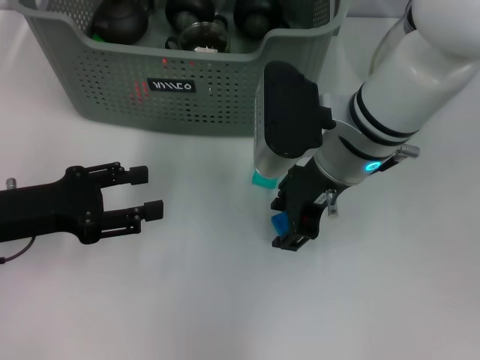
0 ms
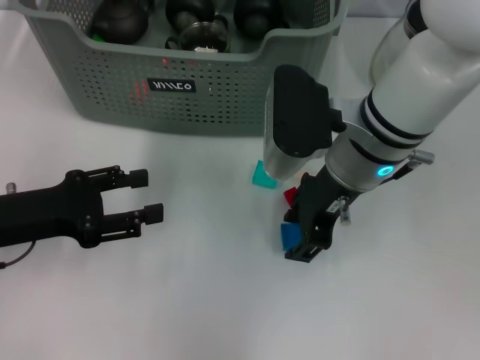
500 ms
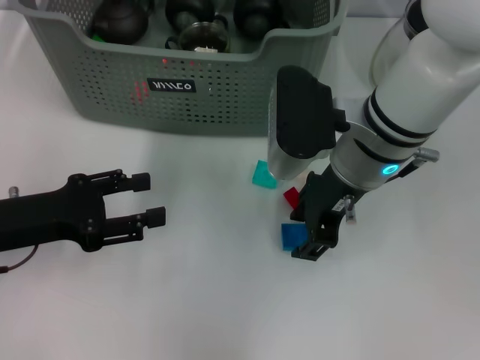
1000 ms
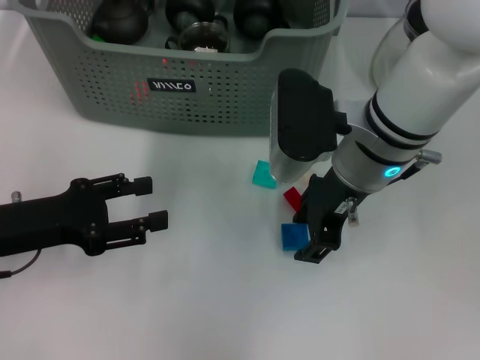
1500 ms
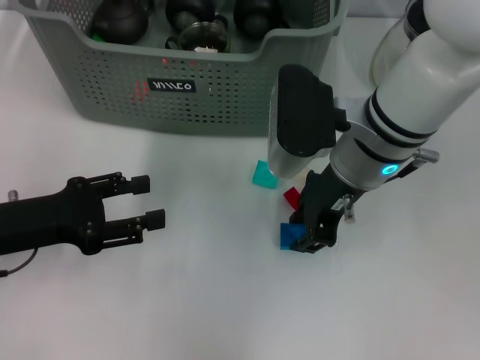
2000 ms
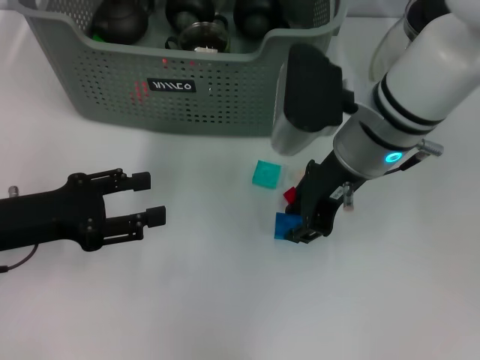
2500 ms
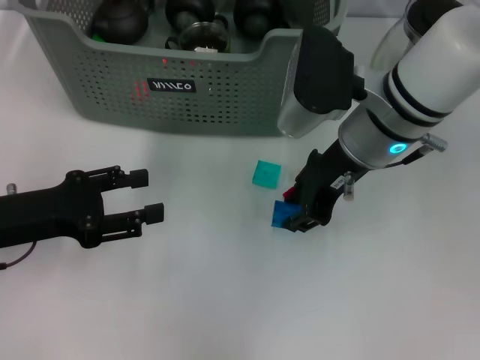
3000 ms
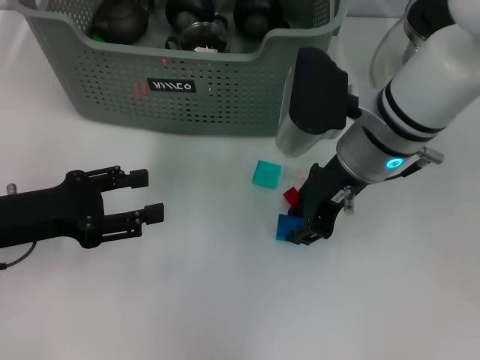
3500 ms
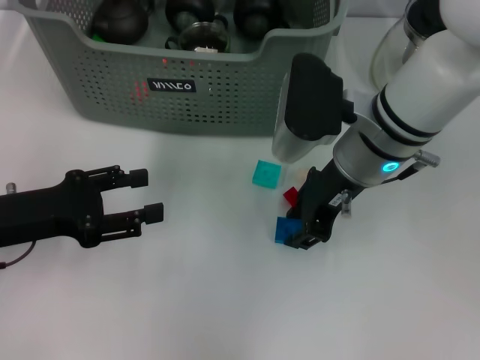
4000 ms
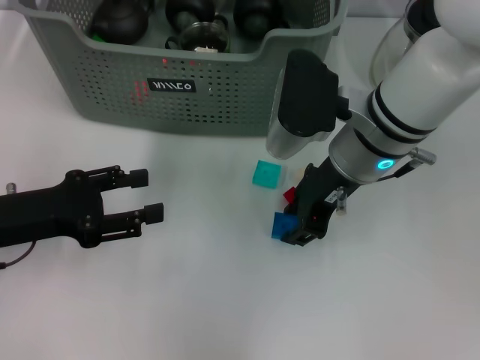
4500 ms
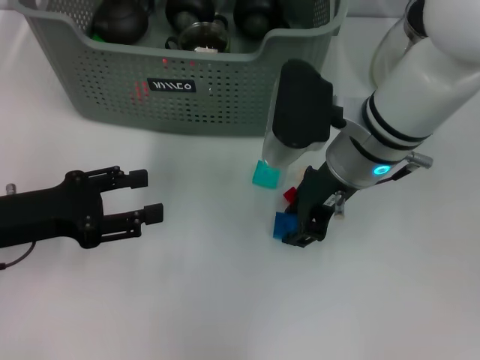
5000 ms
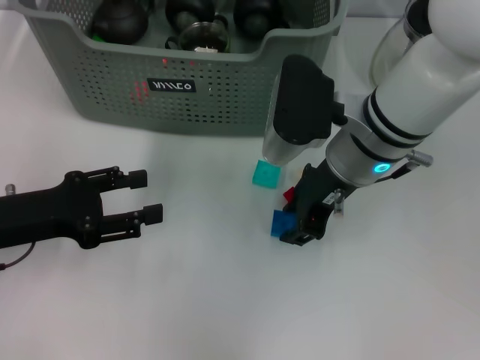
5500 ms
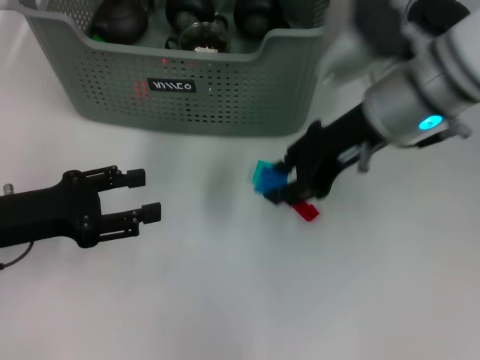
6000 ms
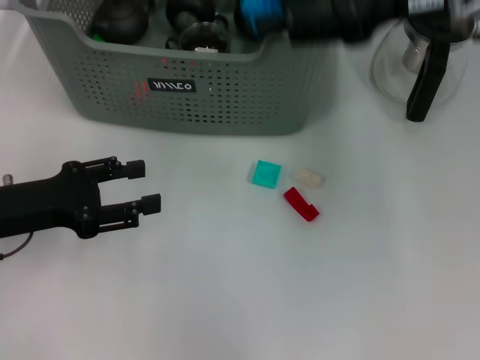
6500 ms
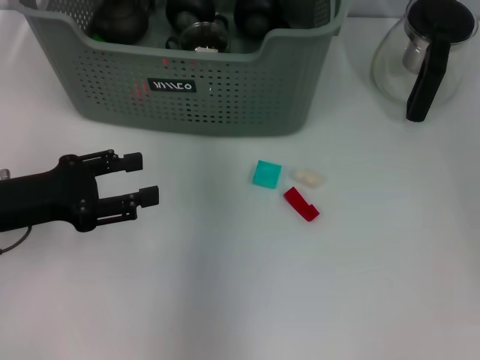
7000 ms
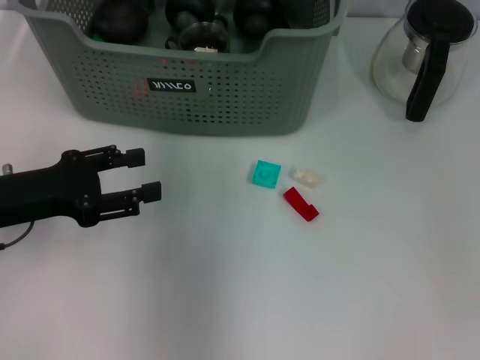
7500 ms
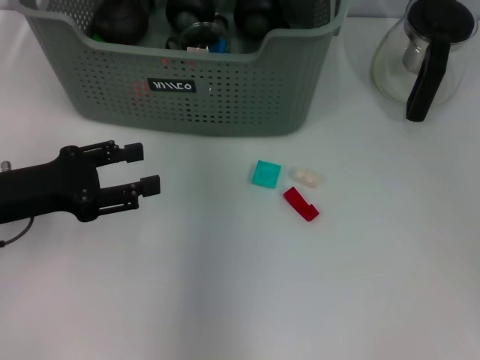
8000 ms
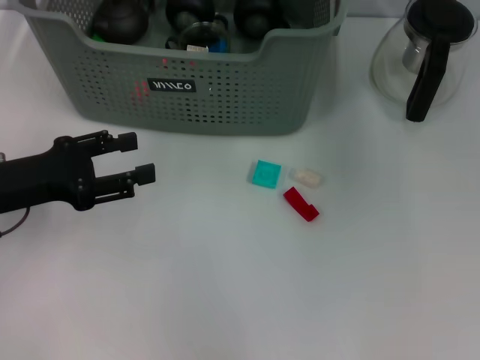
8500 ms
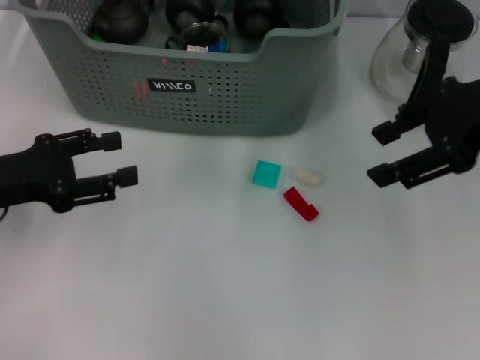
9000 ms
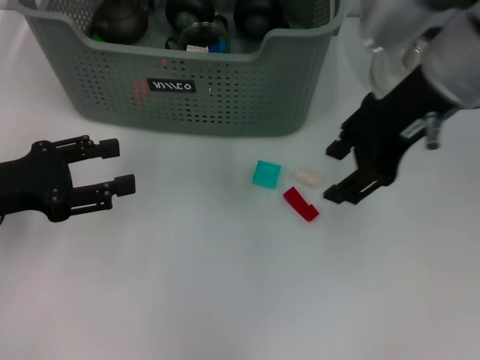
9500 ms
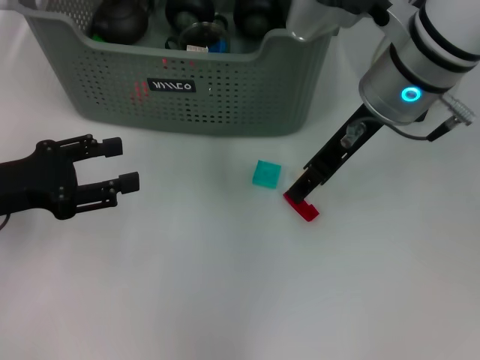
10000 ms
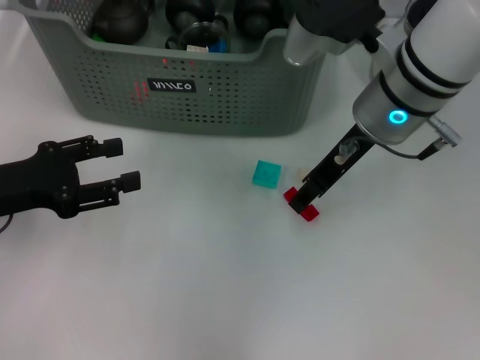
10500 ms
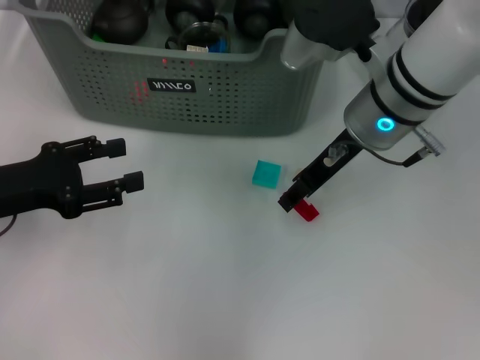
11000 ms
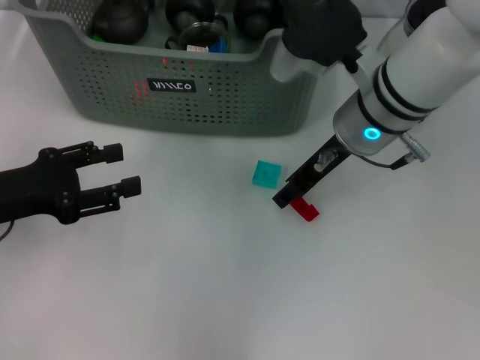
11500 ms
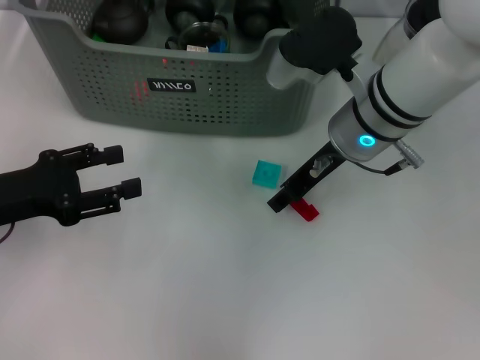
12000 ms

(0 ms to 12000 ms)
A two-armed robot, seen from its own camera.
Task of the whole recording: pick up the teacup on the table and place it into the storage bin, pick up the block on the table and place it into the storage bin.
Step, 0 ms - 2000 ms: Grasp the dark blue block with right gripper.
Step, 2500 ms - 7500 ms: Place the dark blue block in the storage box with right gripper.
0 ms - 4000 ms: There are only small adjustments of the grippers.
4000 ms - 6000 ms: The right gripper heads upward, covering roughly 5 cm.
6000 ms - 8000 ms: The right gripper moves forward, upward and to the left, roughly 15 cm.
8000 ms - 10000 ms: The right gripper goes roughly 15 cm backward, downward and to the right.
10000 ms - 12000 ms: The right gripper is displaced downward by about 5 cm.

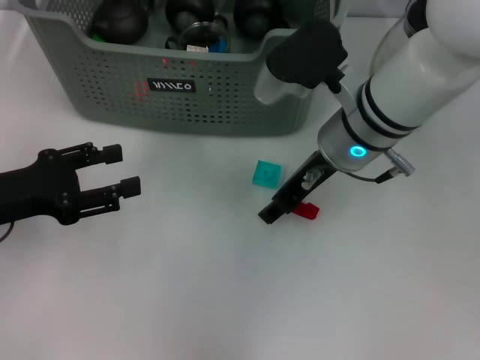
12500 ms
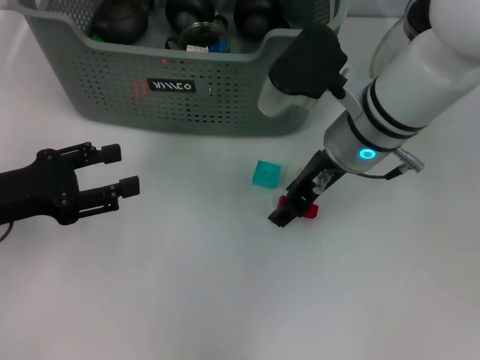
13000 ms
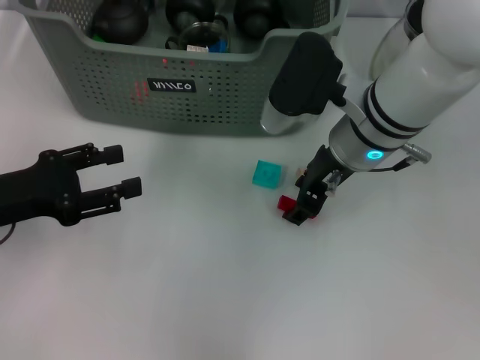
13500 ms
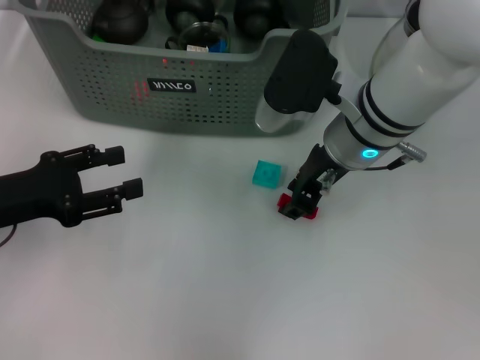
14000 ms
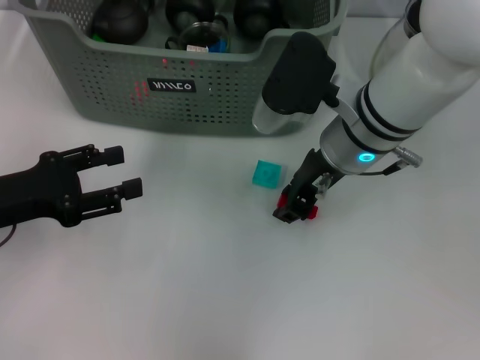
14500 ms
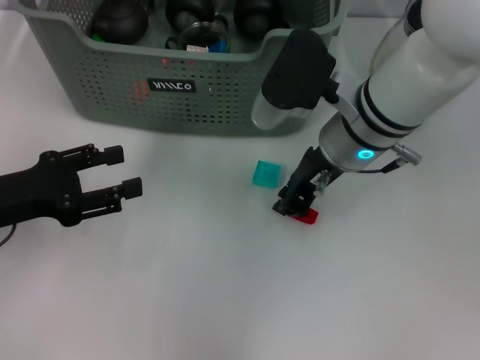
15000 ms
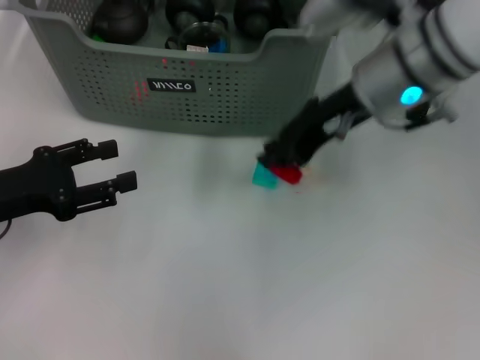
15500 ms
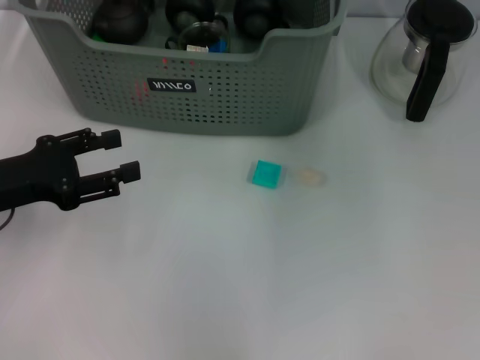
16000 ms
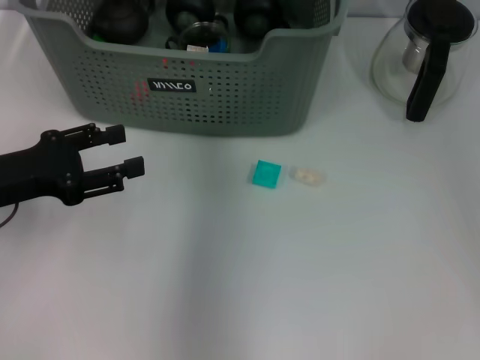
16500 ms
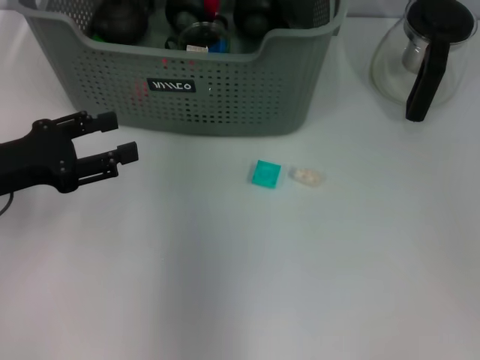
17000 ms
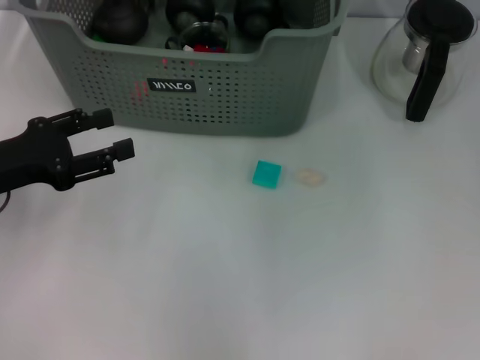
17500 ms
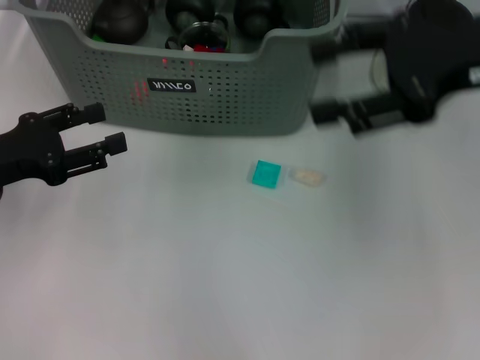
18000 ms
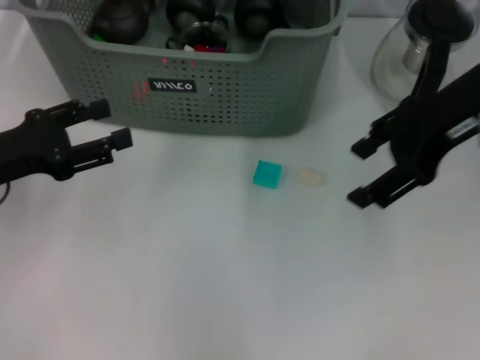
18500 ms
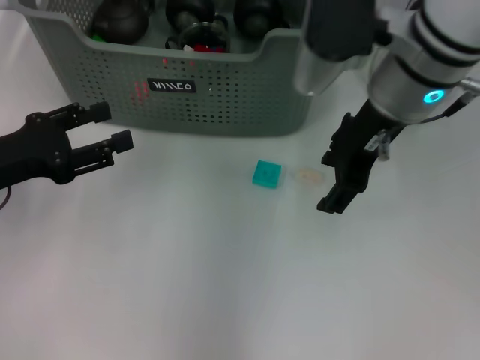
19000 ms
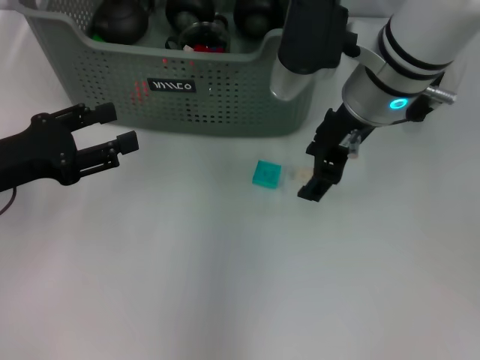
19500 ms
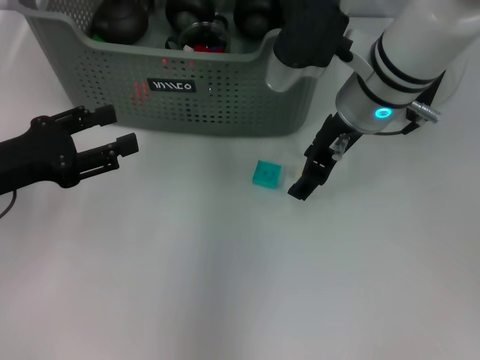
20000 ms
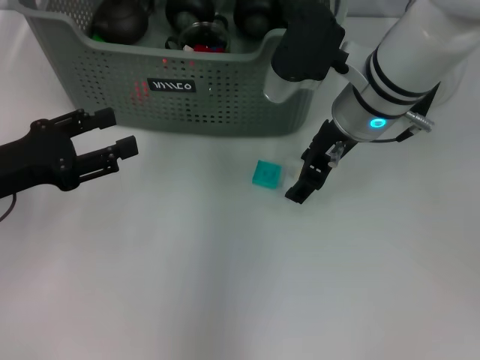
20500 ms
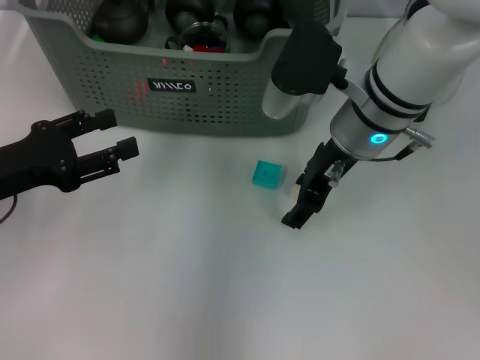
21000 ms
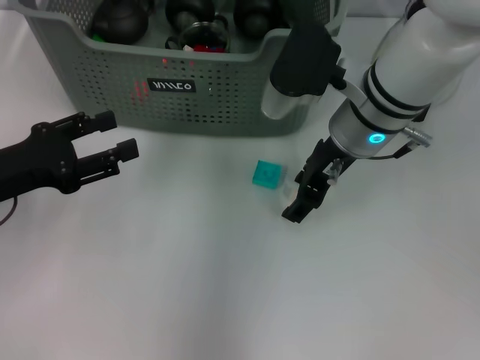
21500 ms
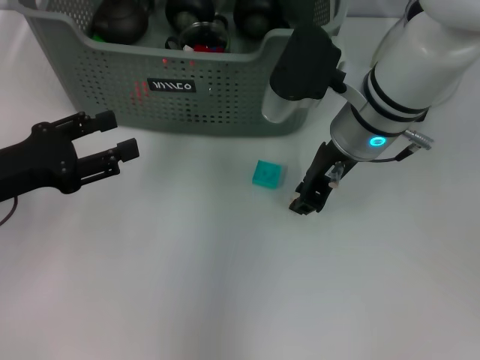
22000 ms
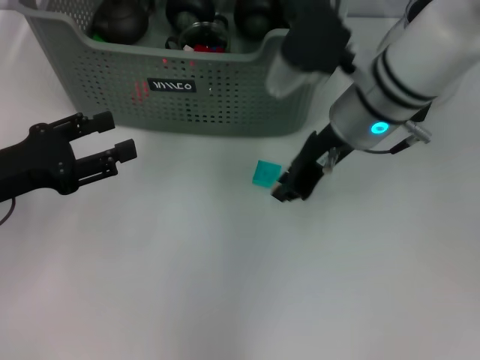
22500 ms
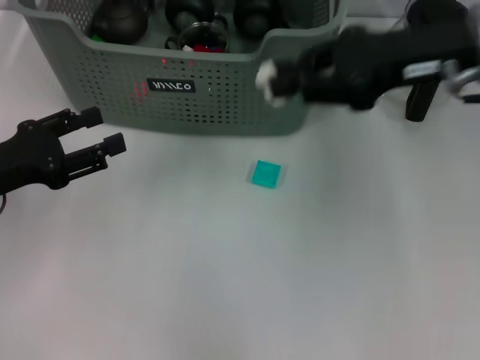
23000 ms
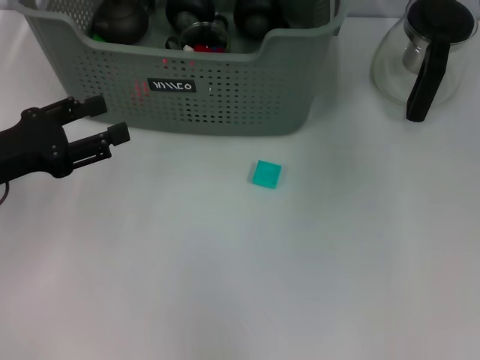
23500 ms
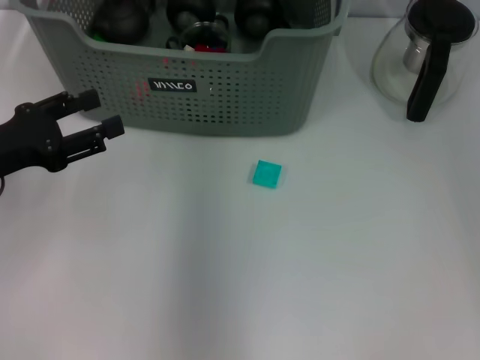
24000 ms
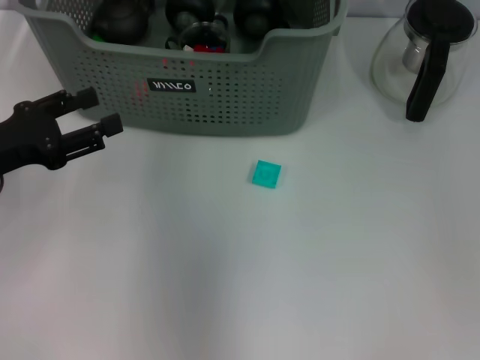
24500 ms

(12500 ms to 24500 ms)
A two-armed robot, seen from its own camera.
Task of the whole recording: pick up the teacup on the table and place it into the storage bin, pick up the block on the table and place it into the storage bin.
Step, 12500 ms - 14500 ms: Grasp the red block with right gripper.
Step, 15000 ms - 17000 ms: Place the red block in the storage box with right gripper.
Step, 17500 ms - 22000 ms: Grasp the white block with right gripper.
12500 ms - 14500 ms: The grippers stay close to where they were, moving slightly.
14500 ms - 16500 ms: The right gripper heads upward and forward, covering roughly 20 cm.
16500 ms - 18500 ms: The right gripper moves to the right and backward, some 15 cm, and opens up.
18500 ms - 20500 ms: The right gripper goes approximately 15 cm downward and to the left.
20500 ms - 22500 ms: The right gripper closes.
22500 ms - 24500 ms: The right gripper travels upward, forward and to the left by about 15 cm.

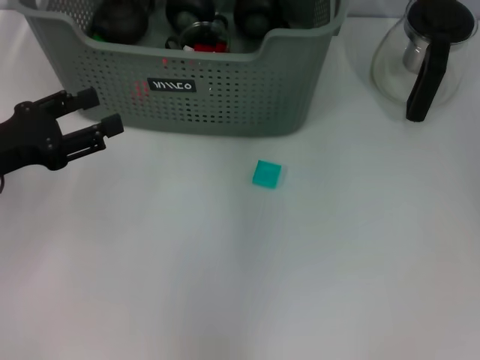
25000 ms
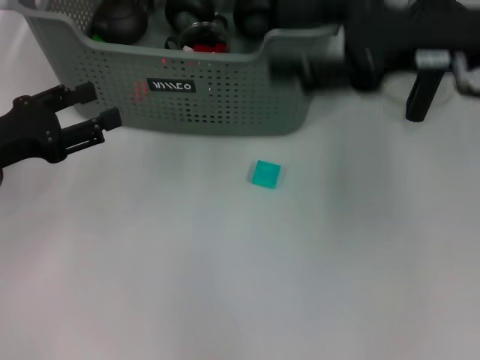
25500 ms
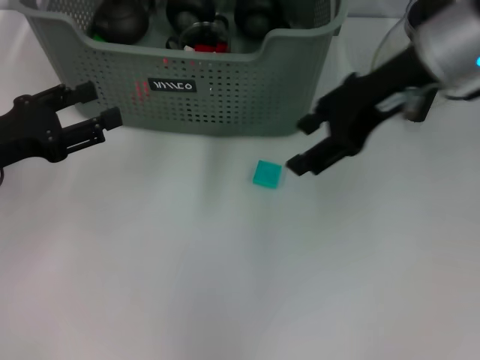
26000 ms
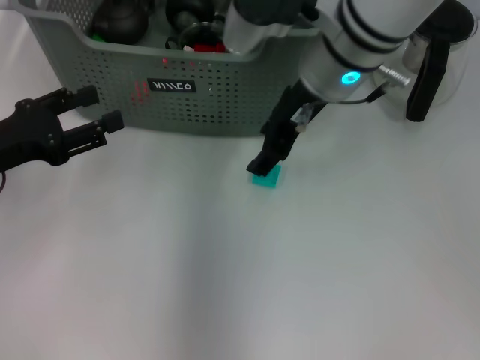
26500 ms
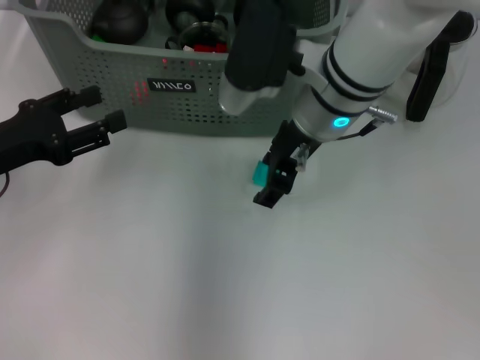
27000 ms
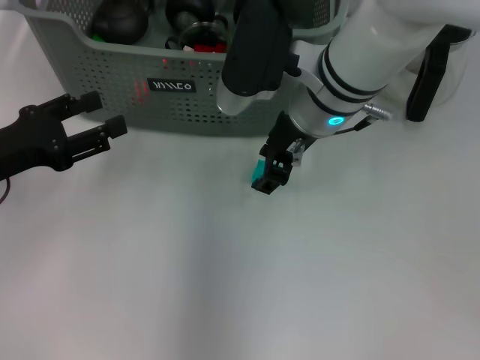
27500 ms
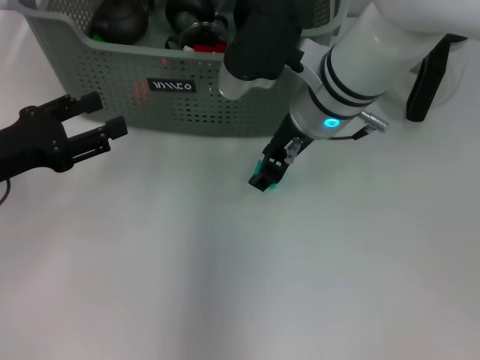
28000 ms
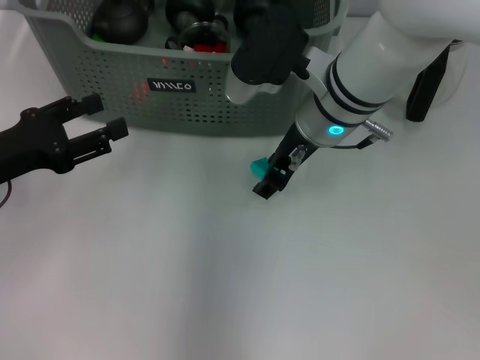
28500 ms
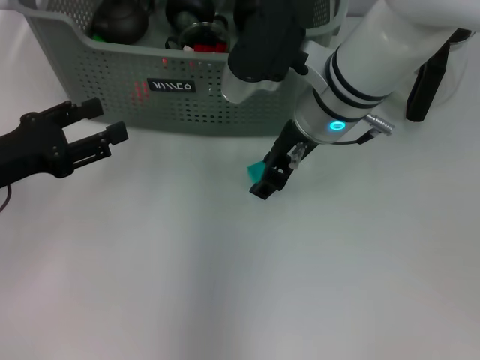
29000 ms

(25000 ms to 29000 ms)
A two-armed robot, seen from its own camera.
Task of the whole recording: pick up the teacup on the table and place it into the storage bin, pick up the block on the table and place it into the storage bin.
25000 ms - 27000 ms: The right gripper travels downward and backward by approximately 15 cm, and travels to the right and back again, approximately 10 cm each way.
27000 ms - 29000 ms: The grippers make only small movements.
